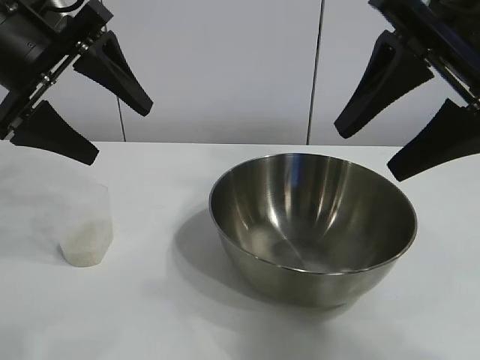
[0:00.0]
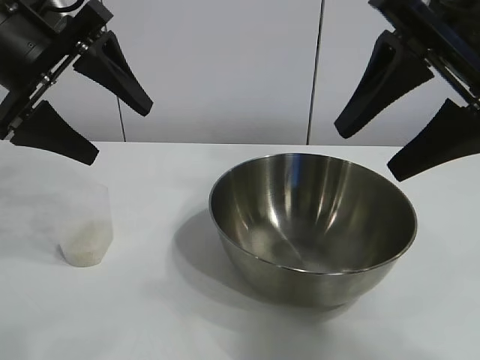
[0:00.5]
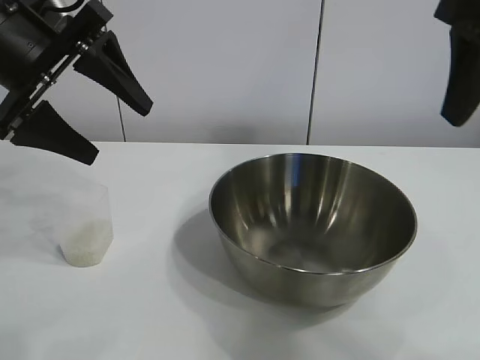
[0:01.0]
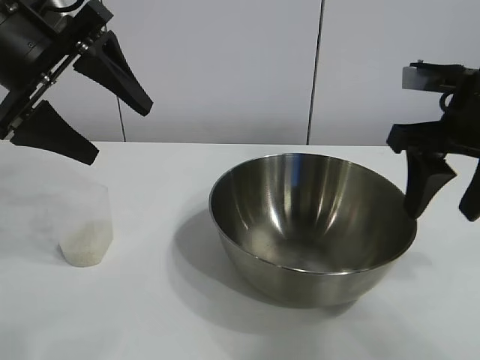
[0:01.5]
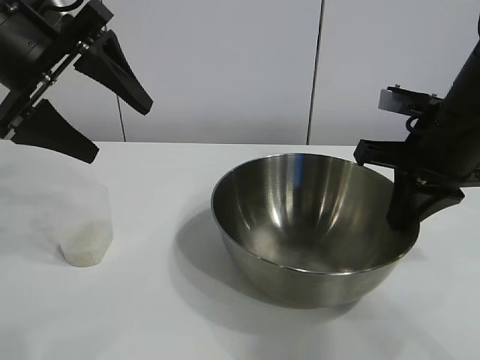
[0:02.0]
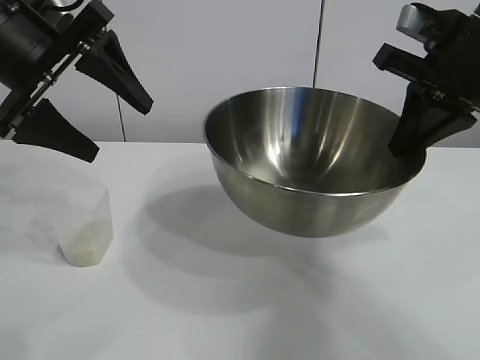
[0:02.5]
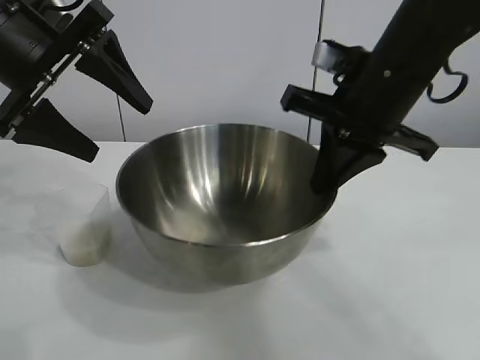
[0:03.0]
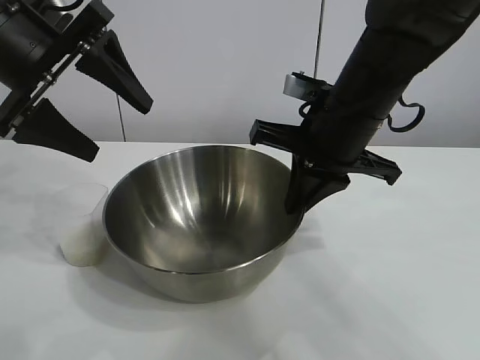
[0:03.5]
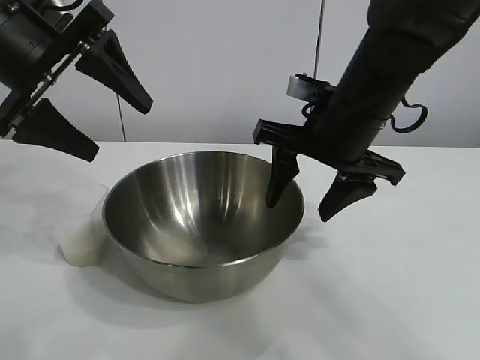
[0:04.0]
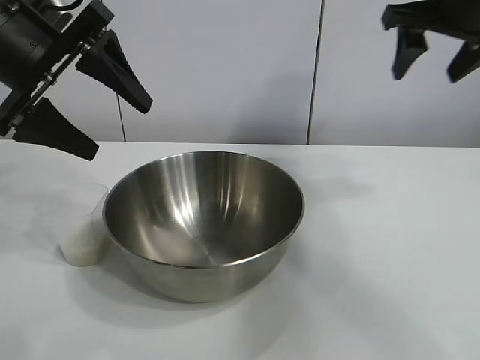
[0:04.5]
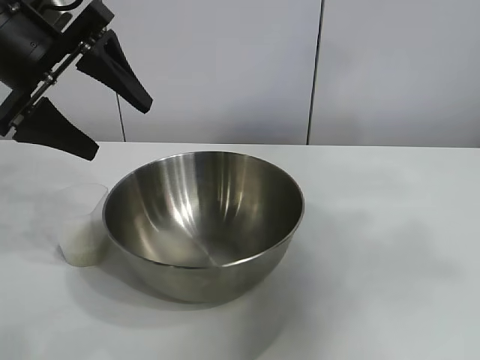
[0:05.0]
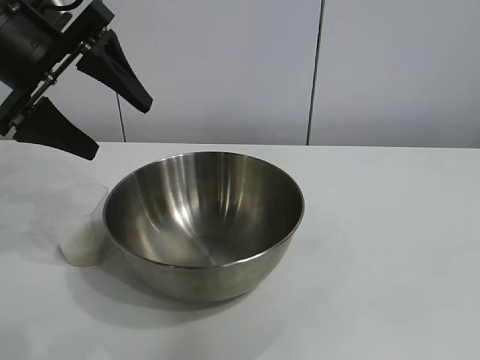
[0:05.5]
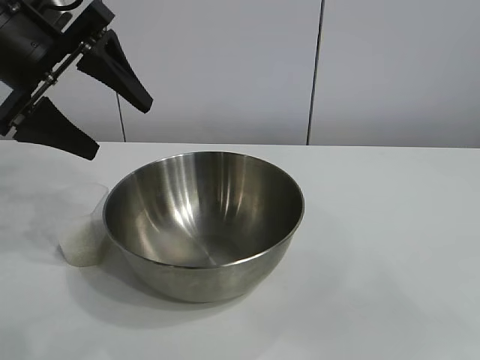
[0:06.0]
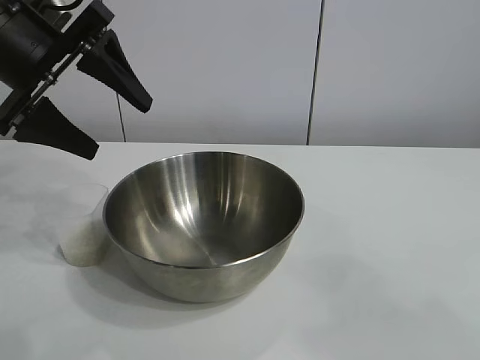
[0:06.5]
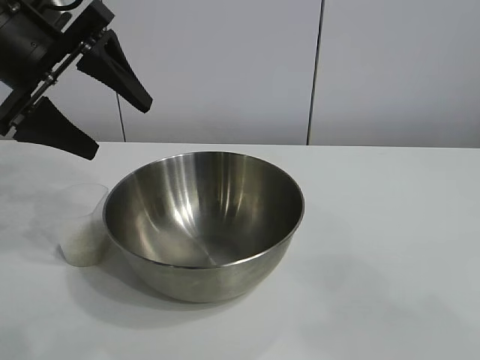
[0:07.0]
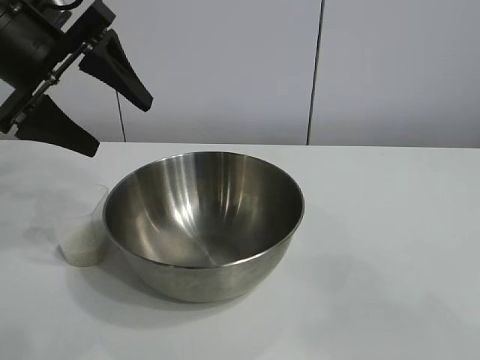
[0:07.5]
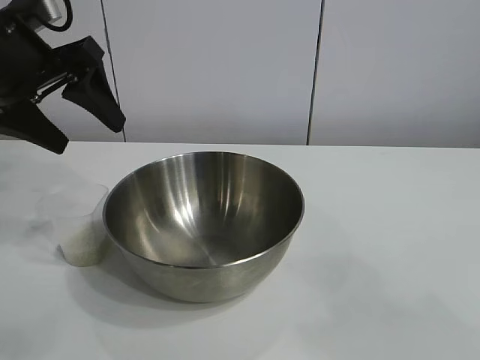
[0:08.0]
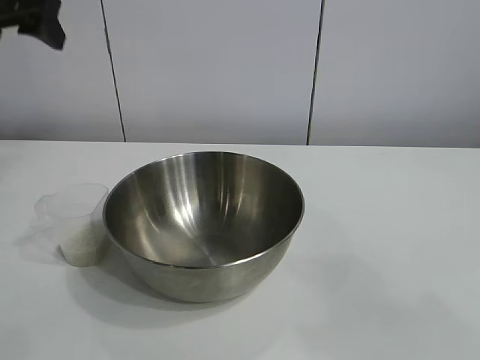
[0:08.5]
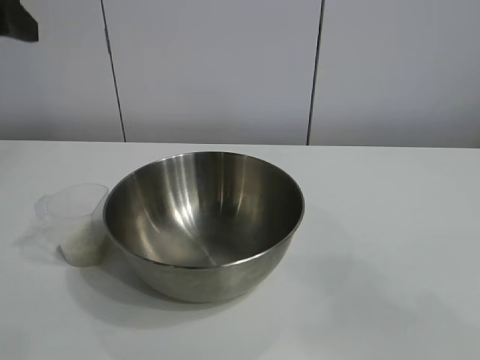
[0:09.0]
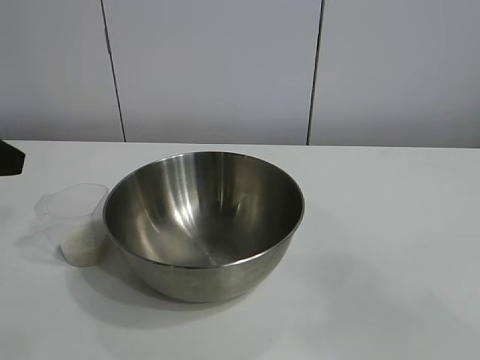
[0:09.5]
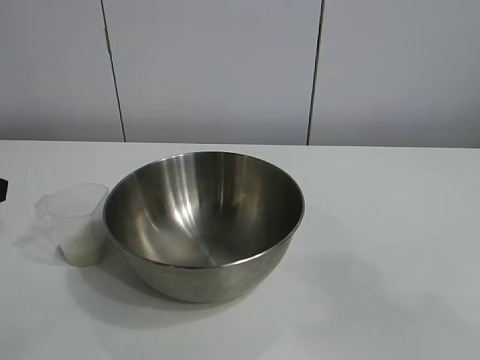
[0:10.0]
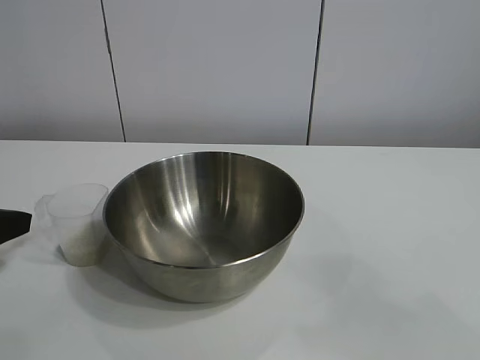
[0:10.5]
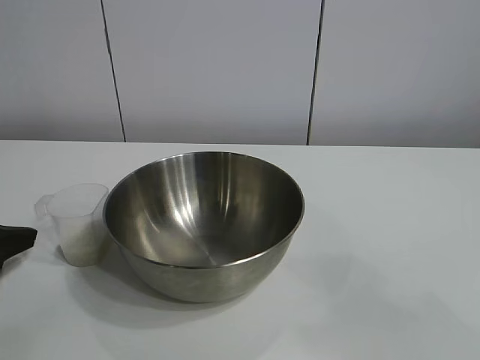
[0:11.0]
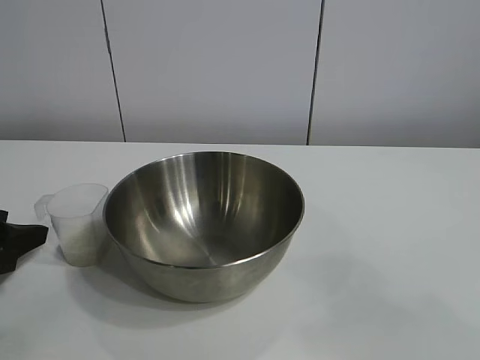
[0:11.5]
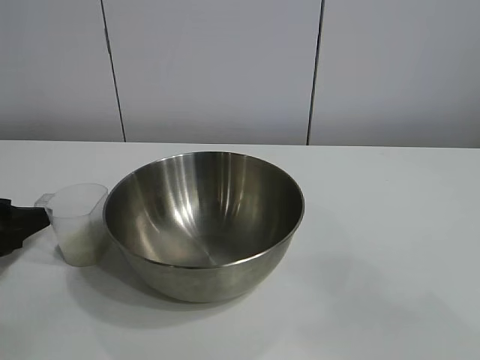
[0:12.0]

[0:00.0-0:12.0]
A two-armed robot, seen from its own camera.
Task of the whole recording: the right gripper grasp the rice container and place it in the center of the table, the left gripper grasp the rice scoop and pour the rice into the rice container.
Step, 0:01.0 to 0:03.5: Move the bowl in the center of view with right gripper.

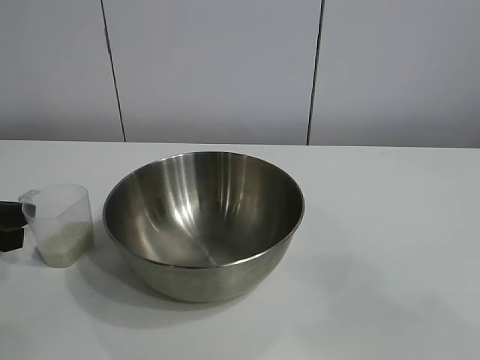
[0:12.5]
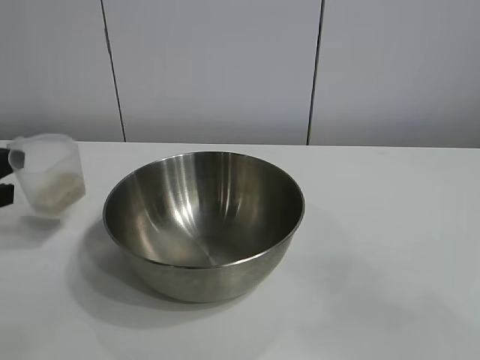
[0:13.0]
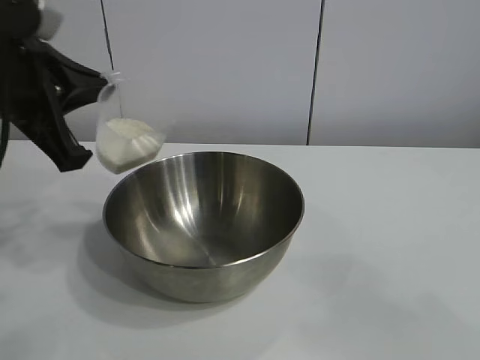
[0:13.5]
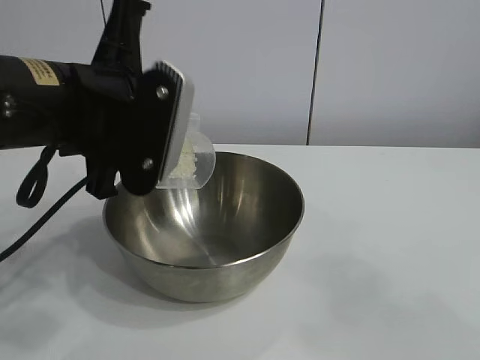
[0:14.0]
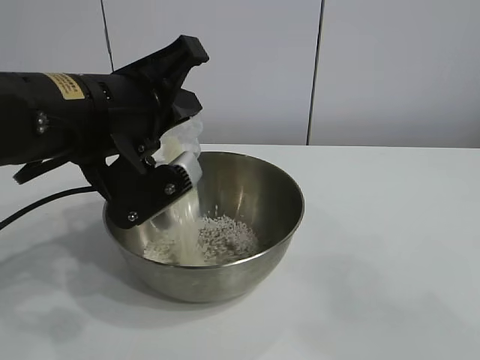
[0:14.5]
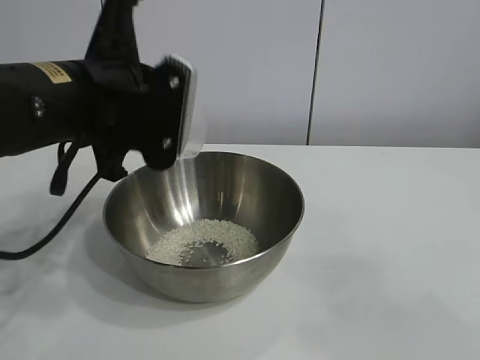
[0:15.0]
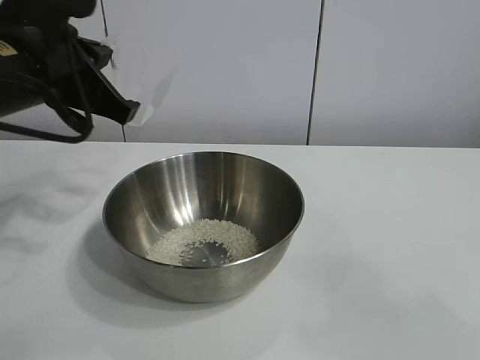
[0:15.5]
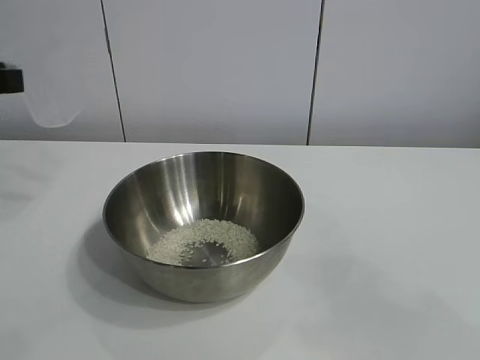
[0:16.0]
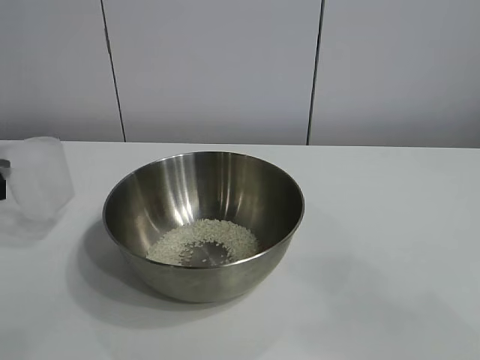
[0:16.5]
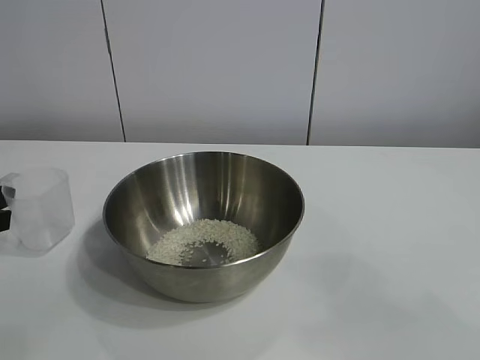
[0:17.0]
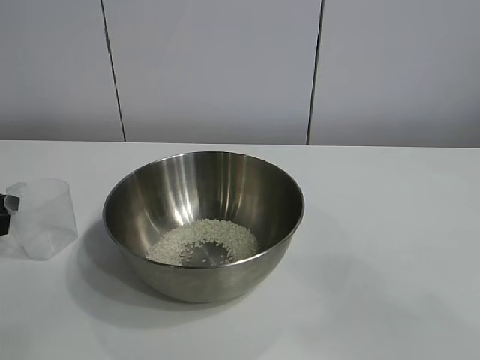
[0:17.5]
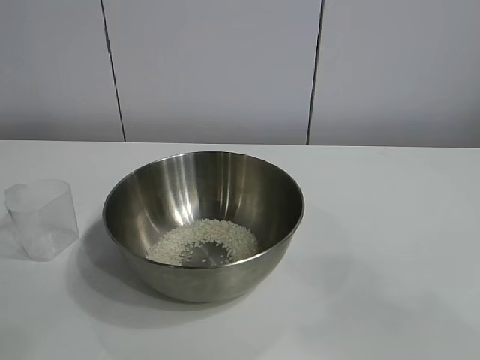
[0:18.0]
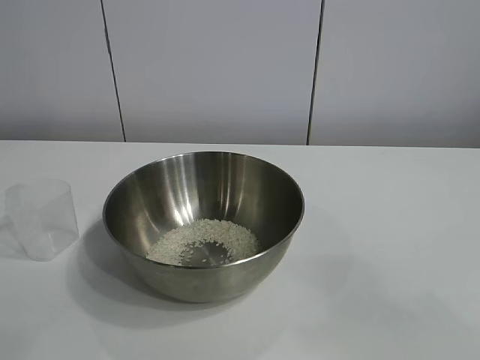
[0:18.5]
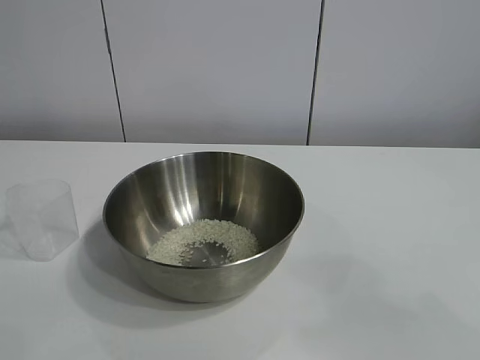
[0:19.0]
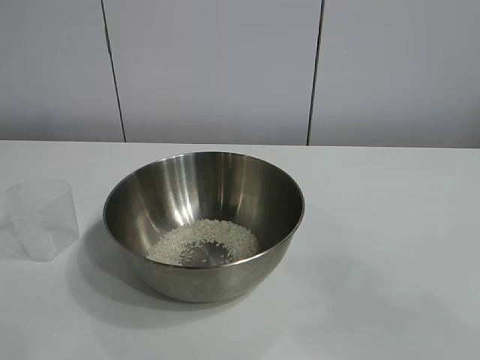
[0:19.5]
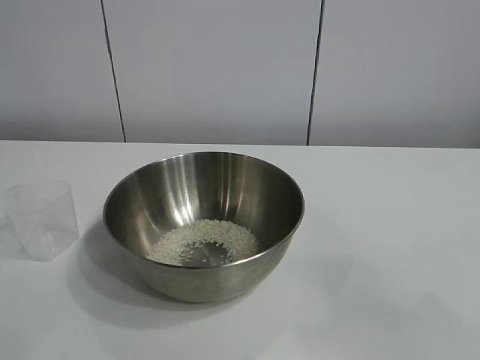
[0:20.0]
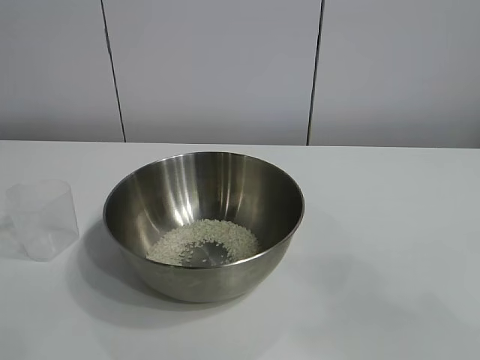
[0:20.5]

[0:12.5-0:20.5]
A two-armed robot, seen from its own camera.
Task of the whole recording: the right gripper grasp the rice container and place it in the center of the table, the left gripper grasp the rice scoop and pour the rice into the rice container.
Step, 0:13.0 to 0:14.5: Pour the rice from the cup into the bowl with the left gripper.
Step, 0:15.0 to 0:17.0: Place the cup on the table with the left gripper.
